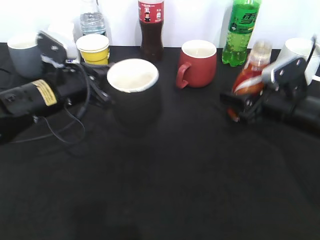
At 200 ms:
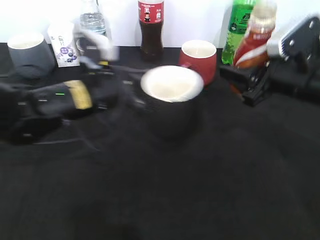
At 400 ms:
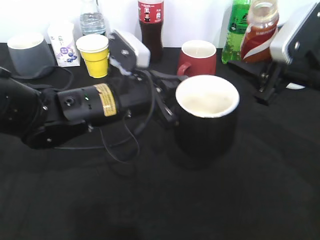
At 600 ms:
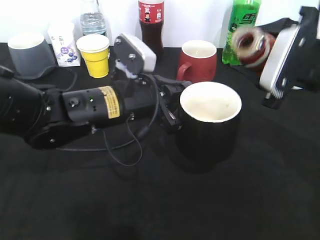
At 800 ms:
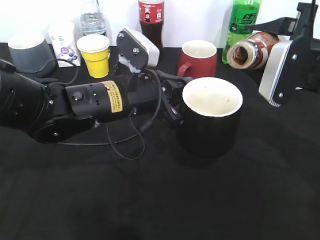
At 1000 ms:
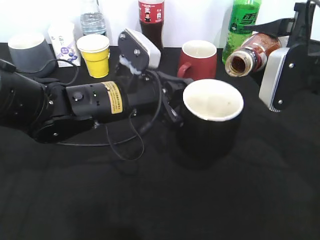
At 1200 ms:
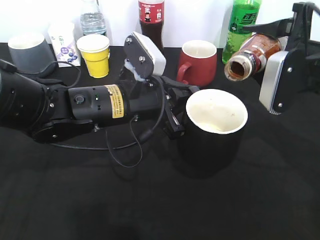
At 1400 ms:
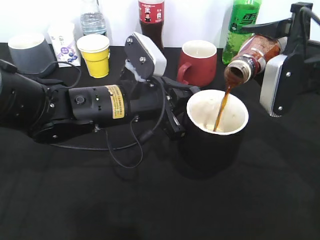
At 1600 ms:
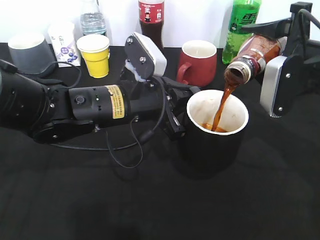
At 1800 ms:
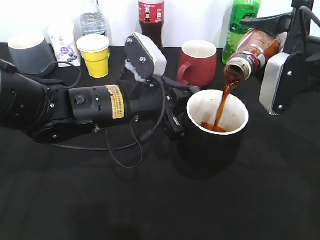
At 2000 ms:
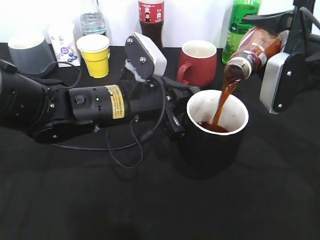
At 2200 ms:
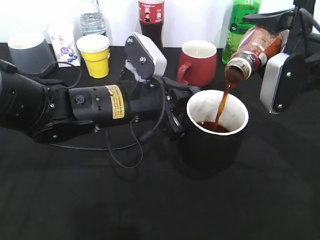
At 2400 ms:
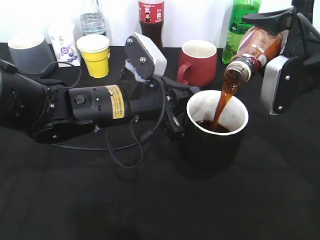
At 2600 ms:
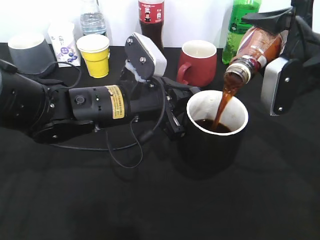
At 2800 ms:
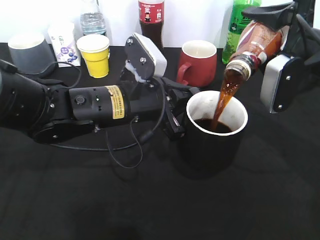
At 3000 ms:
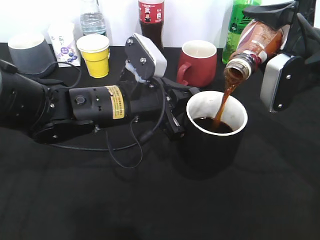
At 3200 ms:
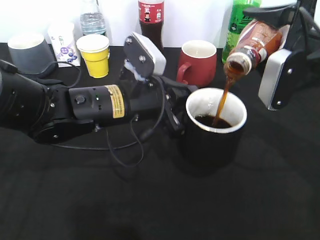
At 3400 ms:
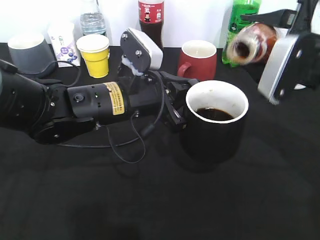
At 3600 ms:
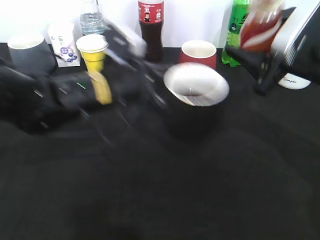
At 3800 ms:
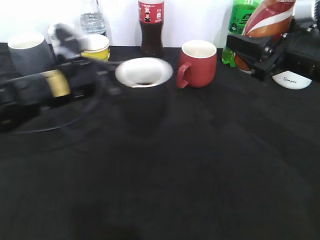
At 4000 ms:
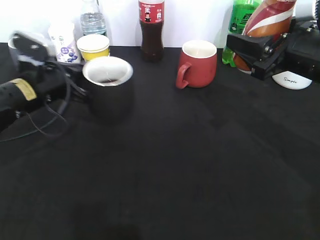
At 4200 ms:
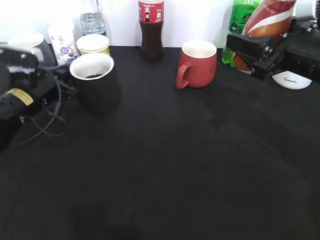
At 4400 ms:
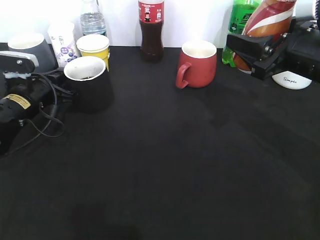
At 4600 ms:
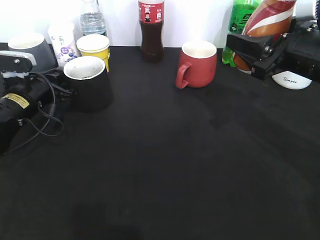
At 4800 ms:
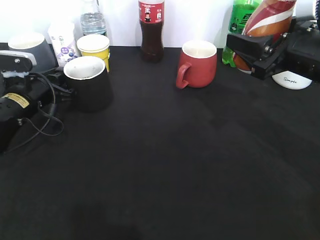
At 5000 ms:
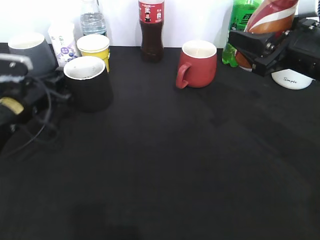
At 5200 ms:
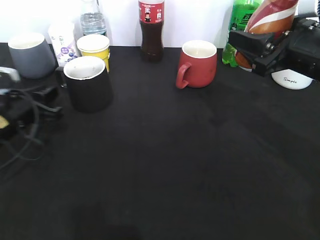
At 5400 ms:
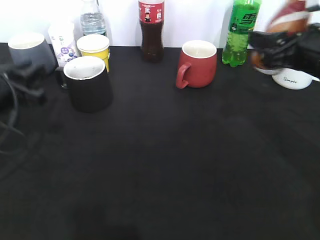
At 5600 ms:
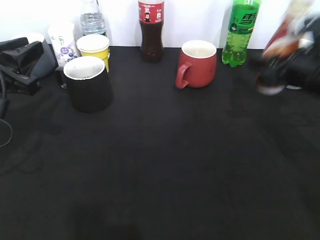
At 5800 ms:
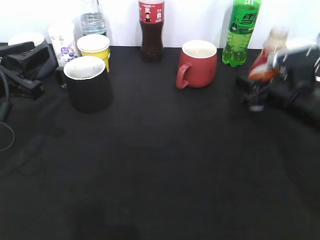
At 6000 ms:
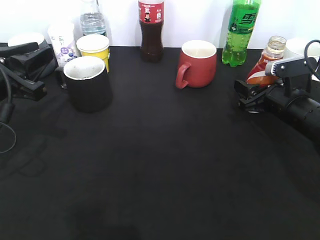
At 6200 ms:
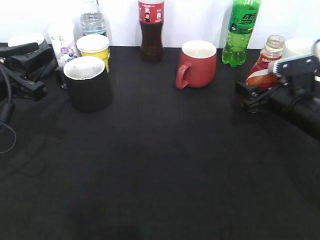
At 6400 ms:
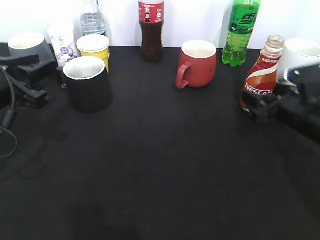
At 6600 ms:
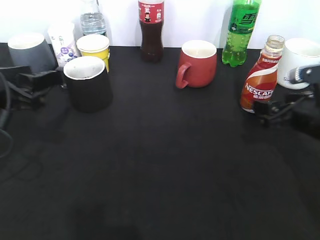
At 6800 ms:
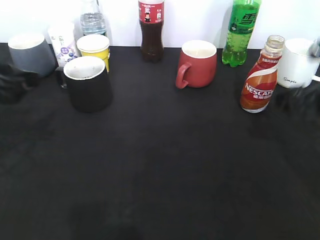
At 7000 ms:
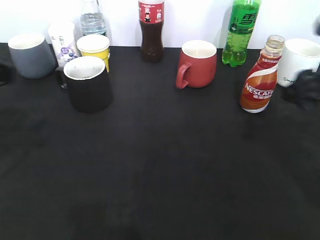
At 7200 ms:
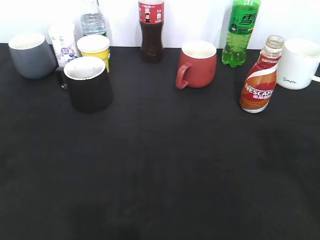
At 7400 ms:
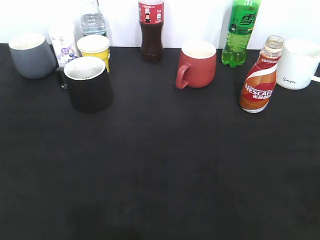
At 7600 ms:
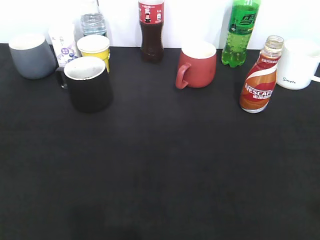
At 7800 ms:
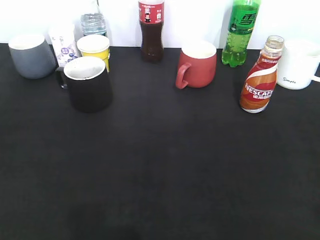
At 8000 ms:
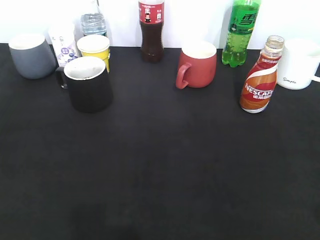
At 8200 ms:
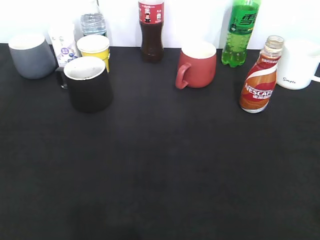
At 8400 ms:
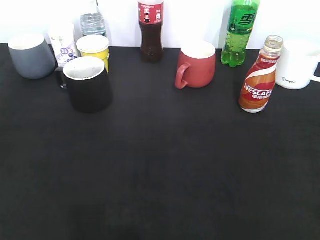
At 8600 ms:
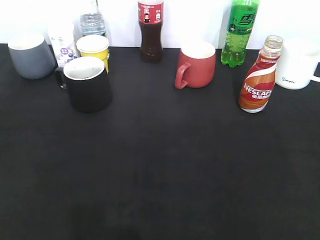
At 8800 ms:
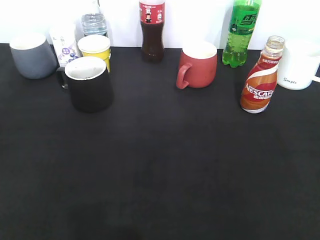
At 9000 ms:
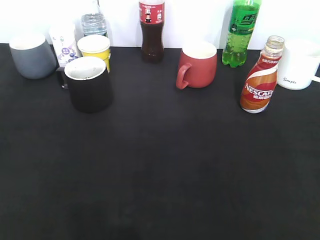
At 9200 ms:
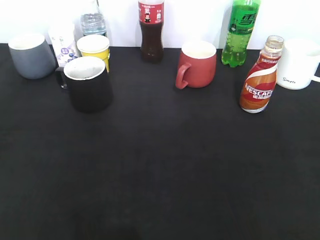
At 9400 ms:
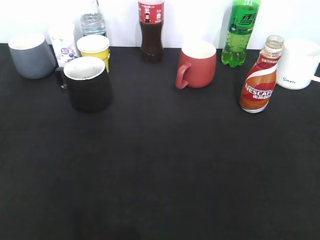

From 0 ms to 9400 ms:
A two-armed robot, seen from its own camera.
Step, from 0 ms to 3800 ms: Pour the coffee from bottle to cup with right gripper.
Step, from 4000 ms to 5000 ms: Place the black cup on the table with left gripper.
Step, from 5200 ms to 6400 ms: Place the coffee bottle on the table with right gripper.
From 0 ms to 1600 ms: The right gripper shifts approximately 10 cm upward, while the left gripper shifts about 10 cm to the right.
From 1600 ms to 3200 ms: The grippers make only small movements.
From 3200 ms to 4800 ms: The left gripper shifts some 20 cm to the left, and opens its fingers.
From 4800 ms to 6200 ms: The right gripper heads downward, covering roughly 10 cm, and opens up. Meanwhile the left gripper moves backward and upward, approximately 15 cm.
From 6200 ms to 7800 ms: The left gripper heads backward, covering about 20 cm, and opens. The right gripper goes about 35 cm backward and upward, and closes its fingers.

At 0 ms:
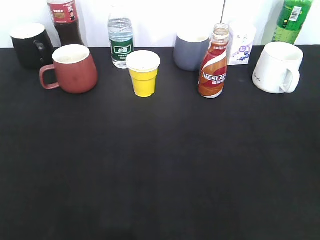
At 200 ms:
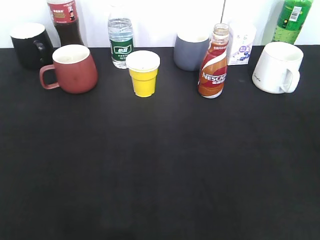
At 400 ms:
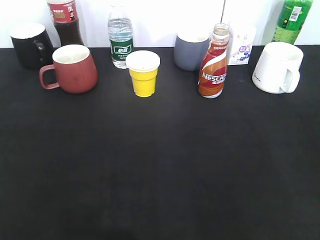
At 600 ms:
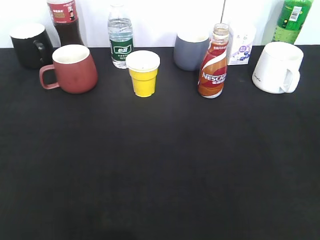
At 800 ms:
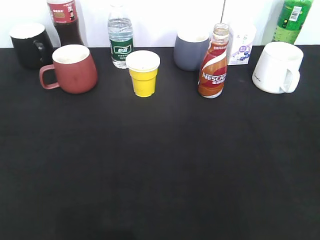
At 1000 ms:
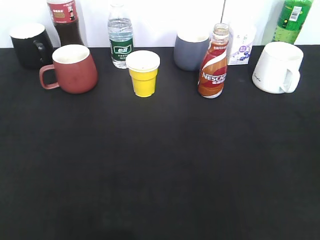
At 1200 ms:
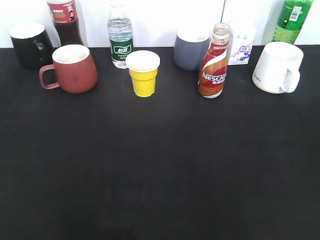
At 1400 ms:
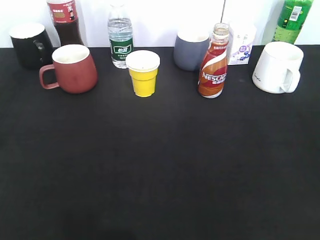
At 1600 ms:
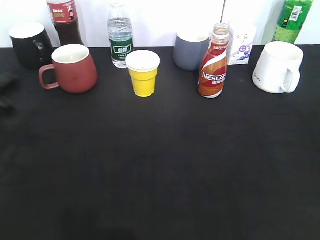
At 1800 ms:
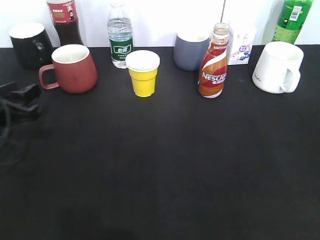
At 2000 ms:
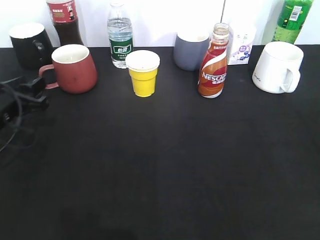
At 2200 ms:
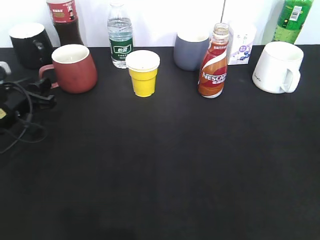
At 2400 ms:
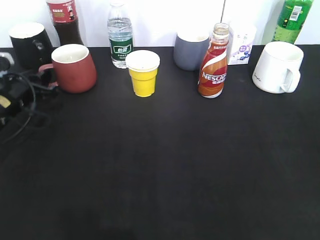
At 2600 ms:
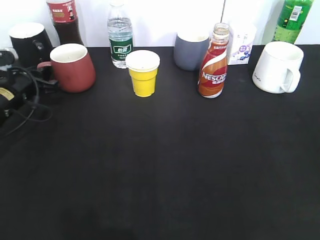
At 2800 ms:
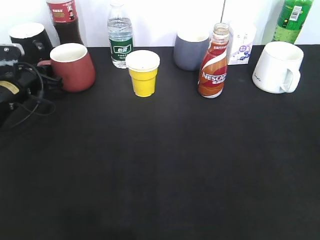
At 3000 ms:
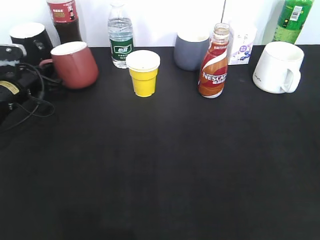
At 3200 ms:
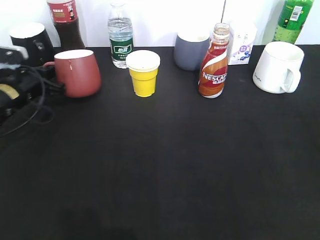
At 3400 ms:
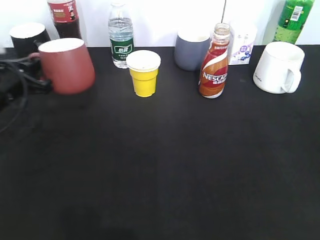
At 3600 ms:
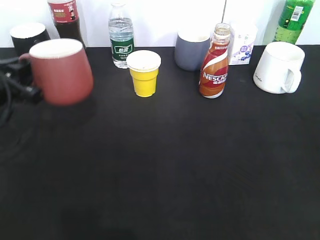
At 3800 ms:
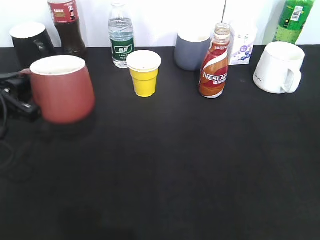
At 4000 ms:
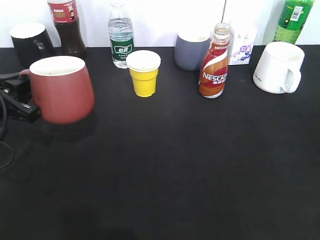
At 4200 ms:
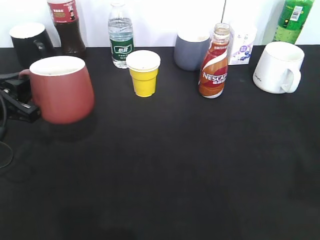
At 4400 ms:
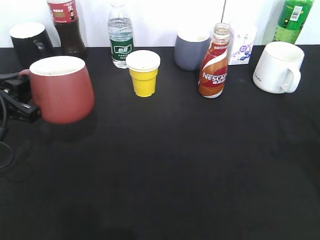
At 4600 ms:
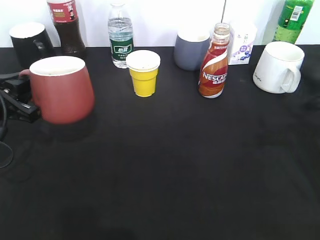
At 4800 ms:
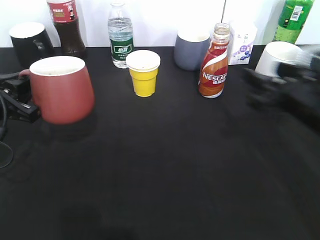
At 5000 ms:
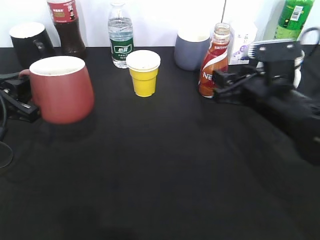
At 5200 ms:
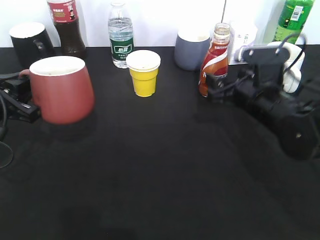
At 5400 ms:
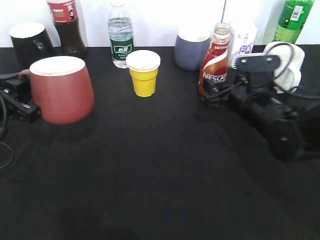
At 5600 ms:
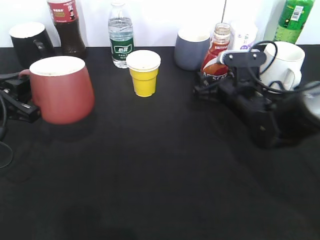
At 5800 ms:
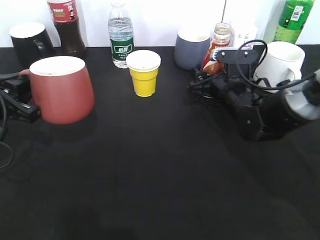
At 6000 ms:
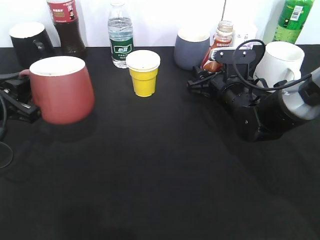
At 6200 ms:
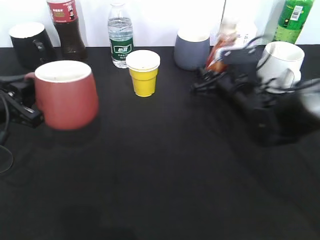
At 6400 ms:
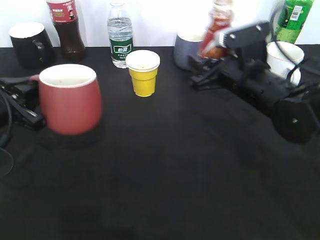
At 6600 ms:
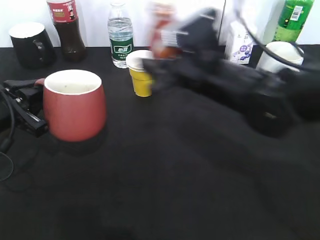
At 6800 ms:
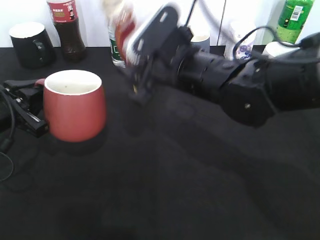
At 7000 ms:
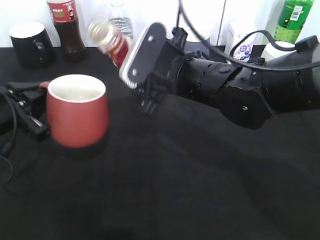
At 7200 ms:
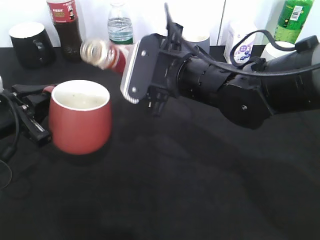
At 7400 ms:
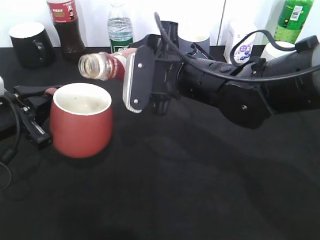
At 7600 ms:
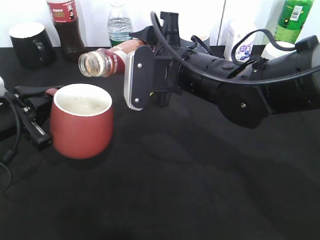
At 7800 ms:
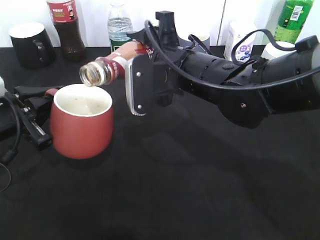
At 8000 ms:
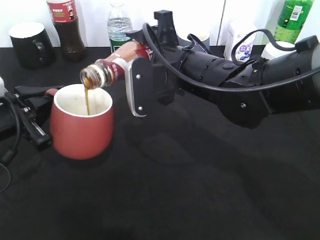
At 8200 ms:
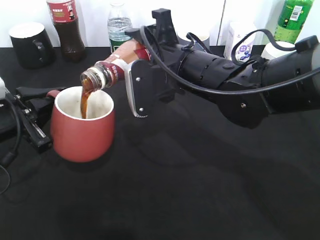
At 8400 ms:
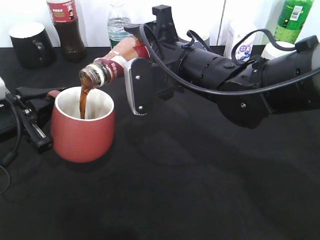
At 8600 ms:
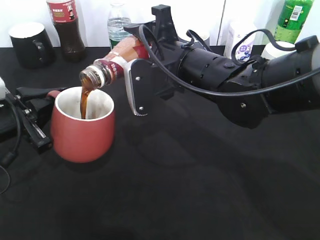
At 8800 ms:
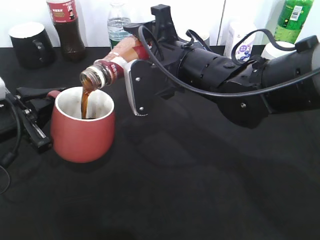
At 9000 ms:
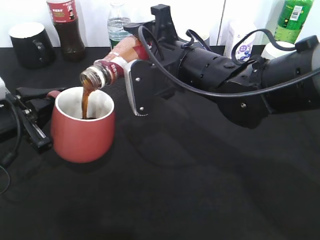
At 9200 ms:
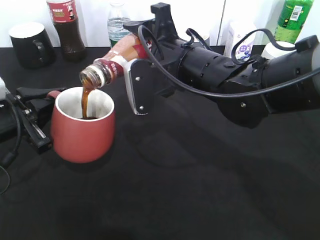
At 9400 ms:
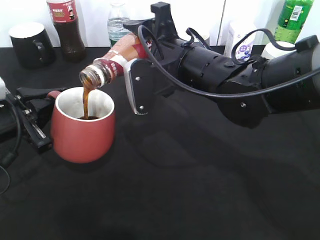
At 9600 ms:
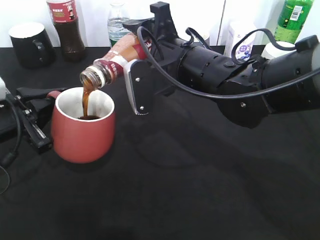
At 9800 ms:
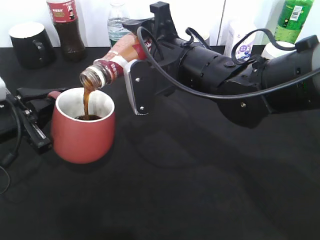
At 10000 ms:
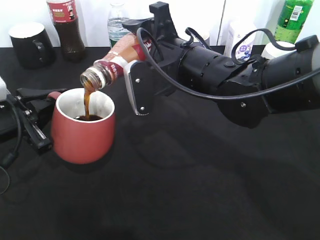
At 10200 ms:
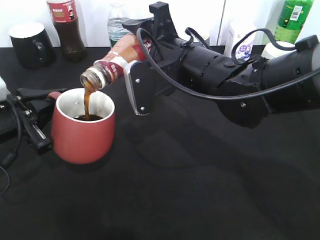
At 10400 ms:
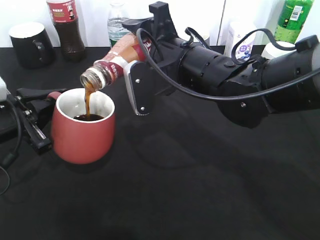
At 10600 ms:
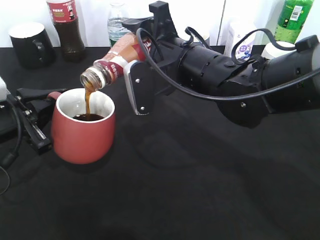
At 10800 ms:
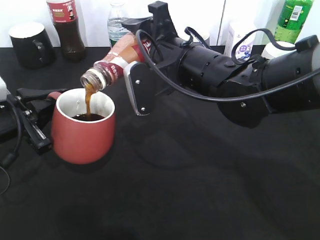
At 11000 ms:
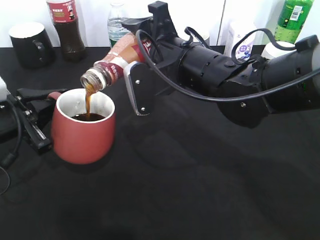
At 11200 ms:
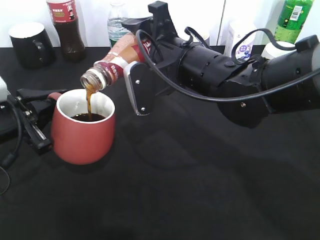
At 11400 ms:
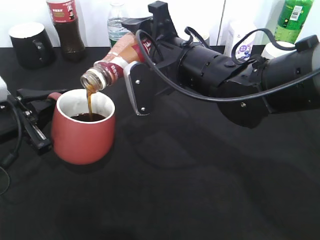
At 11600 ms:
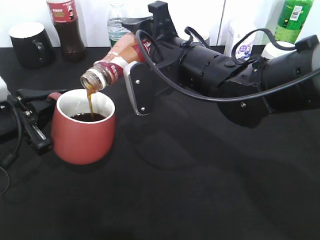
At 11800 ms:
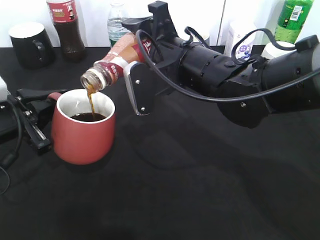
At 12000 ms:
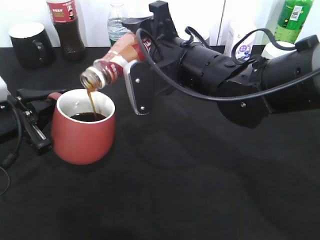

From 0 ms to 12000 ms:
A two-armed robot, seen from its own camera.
Step, from 1600 ms to 2800 ms: Grasp the red cup with left gripper.
Step, from 3000 ms to 4400 ms: Lift the red cup with left gripper.
Step, from 4600 ms to 5800 ms: Grasp the bottle with coffee with right gripper.
From 0 ms to 1600 ms: The left gripper travels forward and downward by some 25 cm.
From 1600 ms to 3000 ms: The left gripper travels forward and downward by approximately 15 cm, and closes its fingers.
From 3000 ms to 4400 ms: The left gripper goes about 15 cm backward and upward.
From 4400 ms to 6000 ms: The right gripper goes some 30 cm forward, downward and to the left, and opens, then closes once more.
From 6000 ms to 7600 ms: The right gripper goes some 15 cm upward, to the left and backward.
From 7600 ms to 9000 ms: The grippers move only a little.
From 9000 ms to 10400 ms: Neither gripper changes place.
From 10400 ms to 12000 ms: Both grippers stay about where they are.
